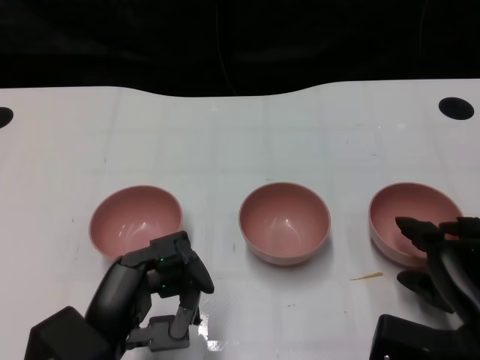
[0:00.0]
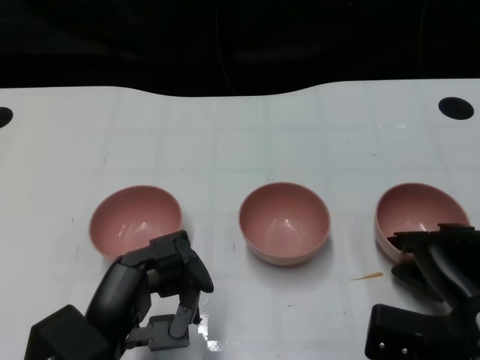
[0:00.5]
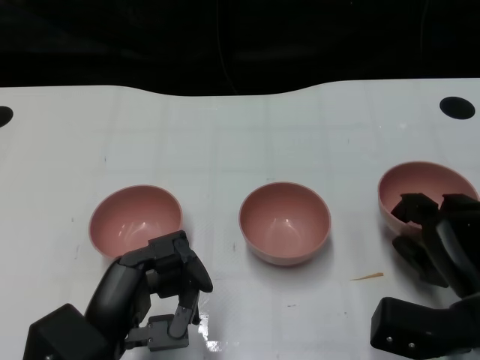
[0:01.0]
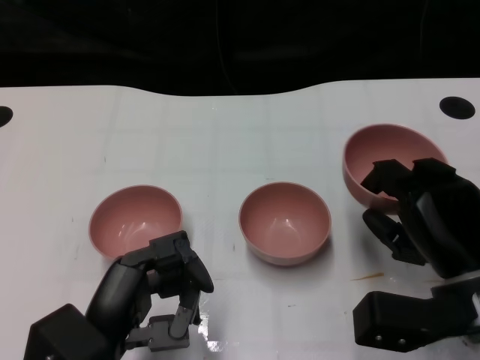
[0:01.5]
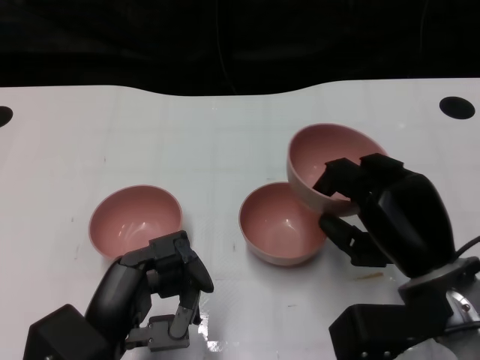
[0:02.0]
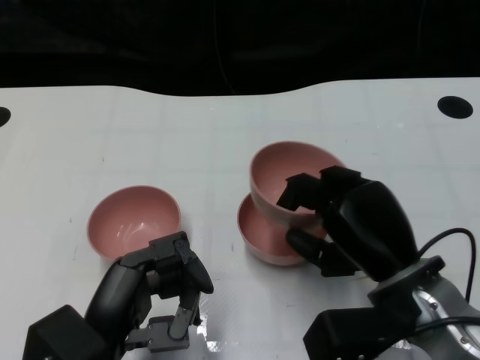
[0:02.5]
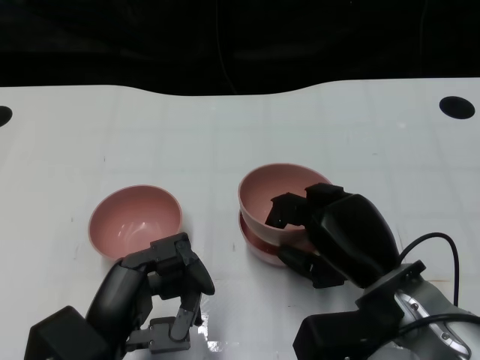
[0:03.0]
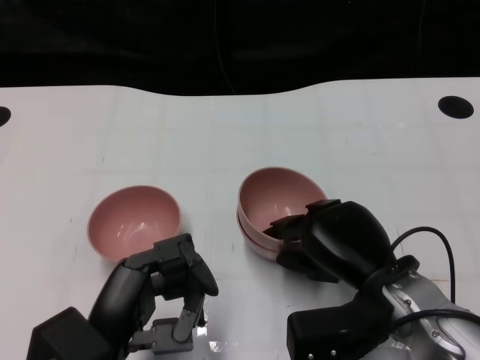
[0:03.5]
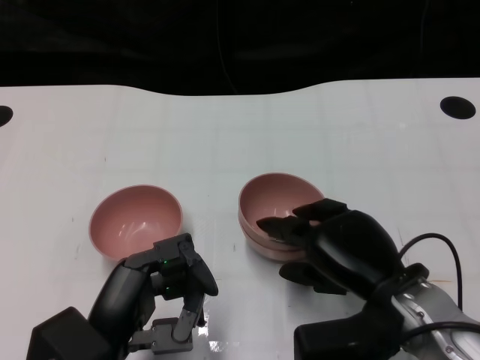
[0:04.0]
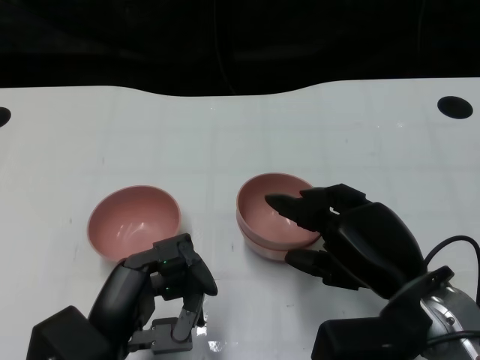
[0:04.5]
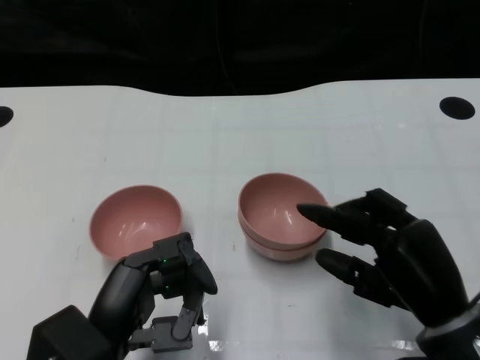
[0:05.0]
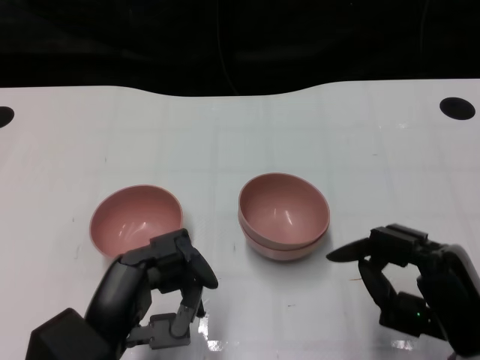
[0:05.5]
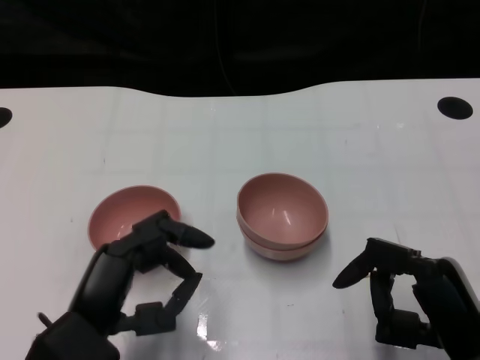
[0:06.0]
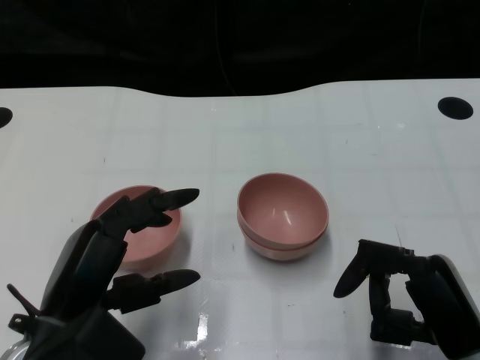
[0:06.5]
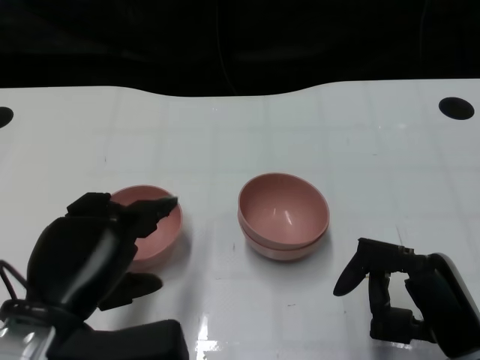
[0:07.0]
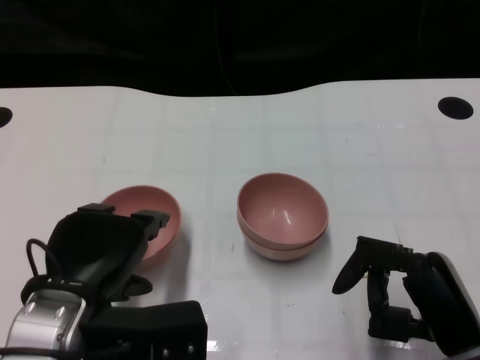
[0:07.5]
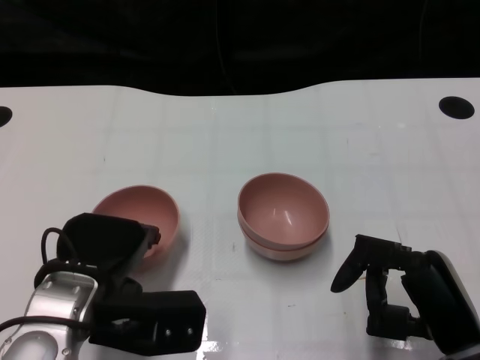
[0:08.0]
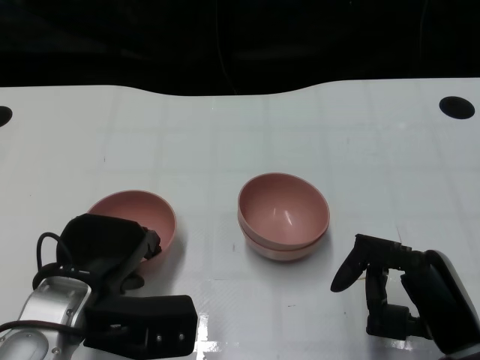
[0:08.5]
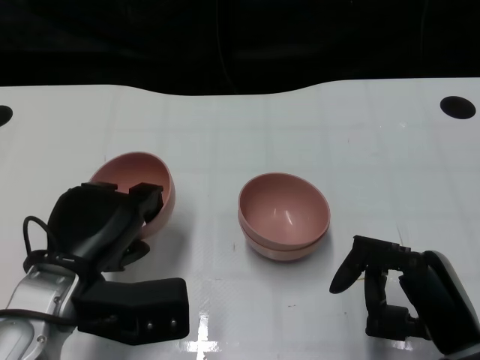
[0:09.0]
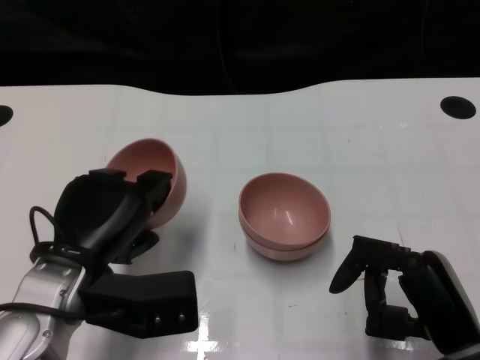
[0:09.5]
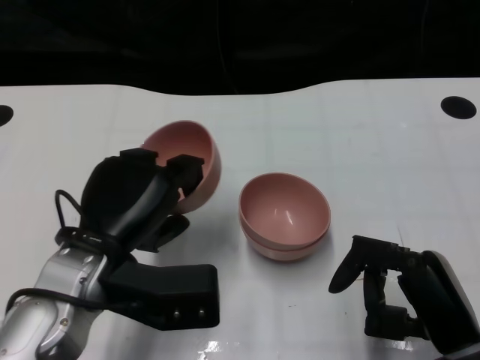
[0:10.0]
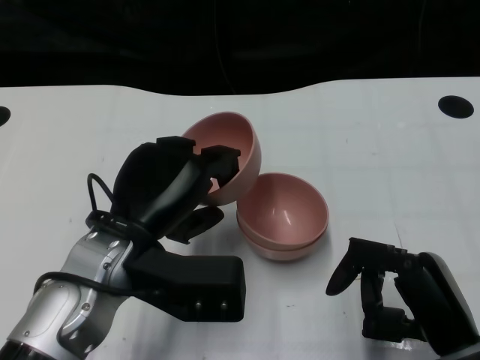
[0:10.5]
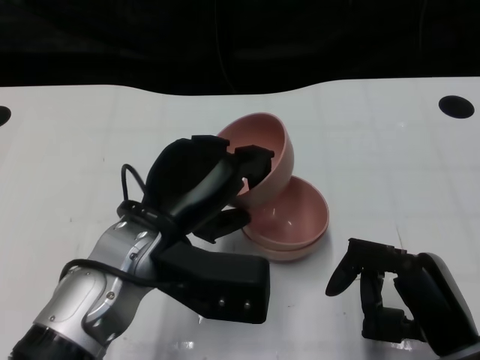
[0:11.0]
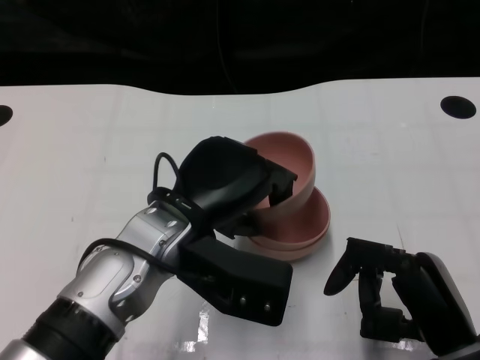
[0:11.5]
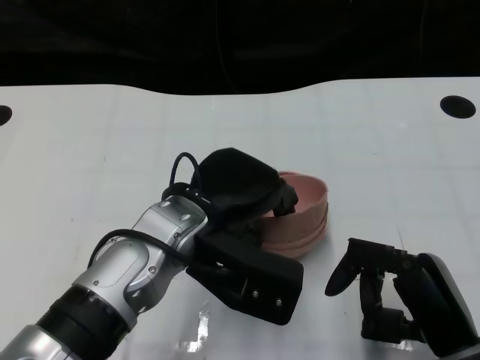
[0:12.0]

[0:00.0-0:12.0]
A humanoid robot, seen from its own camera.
Task of the whole recording: Pick up the bowl on one side of the table and place it on top of the middle bowl, then pick up the bowl on the other side of the table and place it on top of the middle bowls.
Step, 0:01.0 to 0:04.5: Place the bowl on the right onto the bowl in the middle with right gripper.
Step, 0:05.0 to 0:08.5: Grasp the bowl on the left with the left gripper.
0:00.0 to 0:02.0: The right hand heads to the left, covering some 5 cm.
0:04.0 to 0:06.0: The right hand heads backward and to the right, covering some 10 cm.
0:06.0 to 0:08.0: The left hand heads forward, covering approximately 5 cm.
0:10.0 to 0:12.0: The left hand shifts about 10 cm to the right.

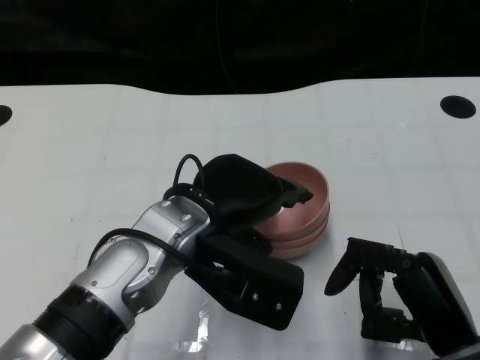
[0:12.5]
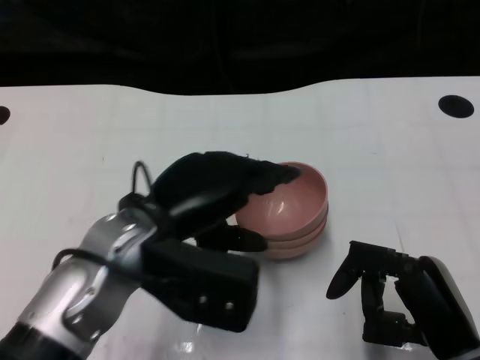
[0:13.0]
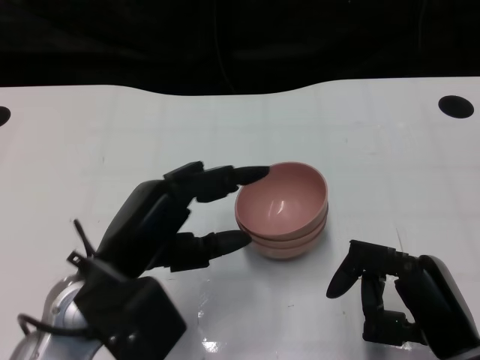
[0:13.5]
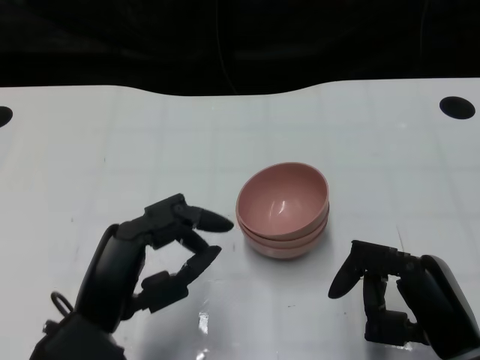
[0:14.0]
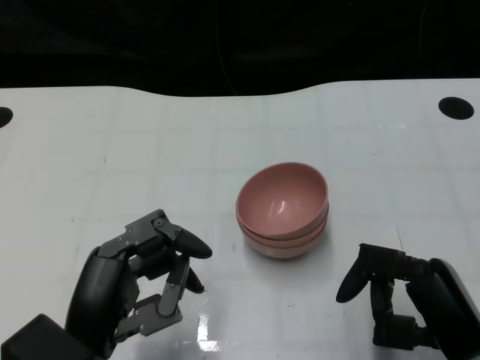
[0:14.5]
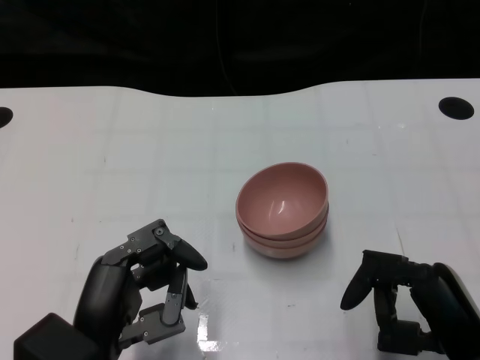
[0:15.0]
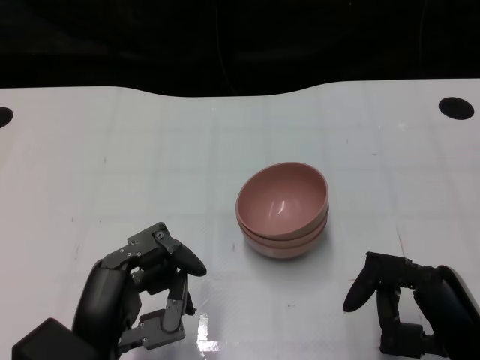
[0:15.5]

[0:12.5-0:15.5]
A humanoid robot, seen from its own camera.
Task of the whole recording: Pick up the bowl on one side of the table and place it on top of the middle bowl, then pick up the bowl on the other side of the table and place it on top of the middle bowls.
0:12.5 to 0:14.0: The left hand shifts some 15 cm to the left and backward.
0:14.0 to 0:15.5: There are only small adjustments of the hands.

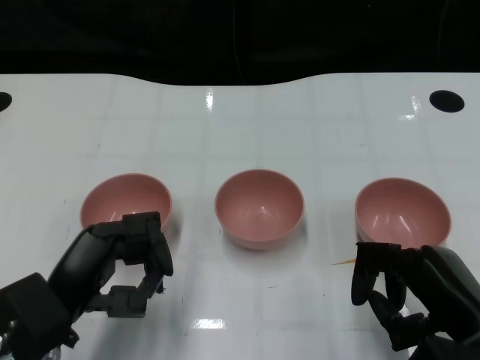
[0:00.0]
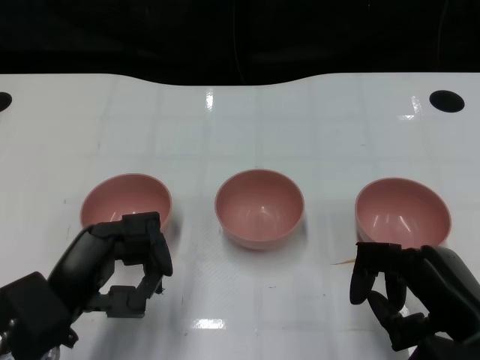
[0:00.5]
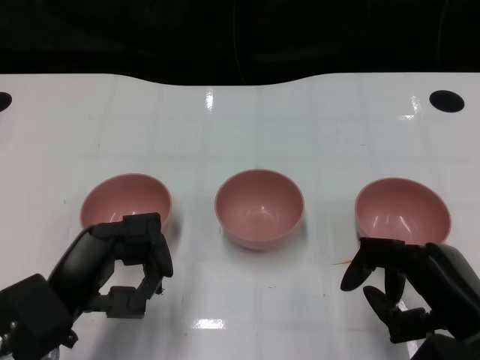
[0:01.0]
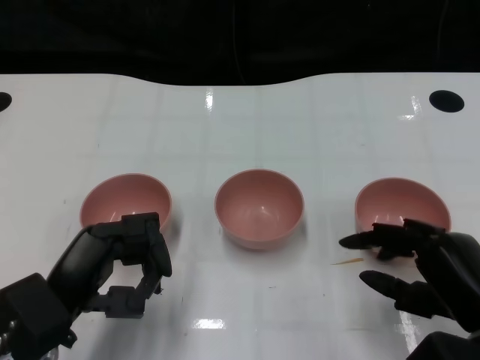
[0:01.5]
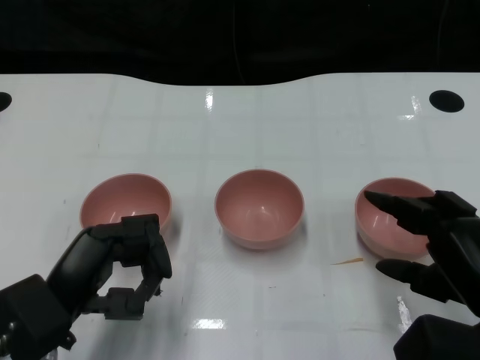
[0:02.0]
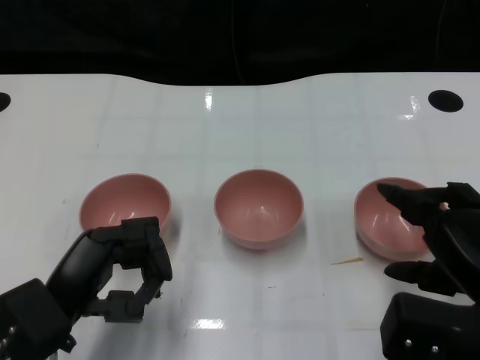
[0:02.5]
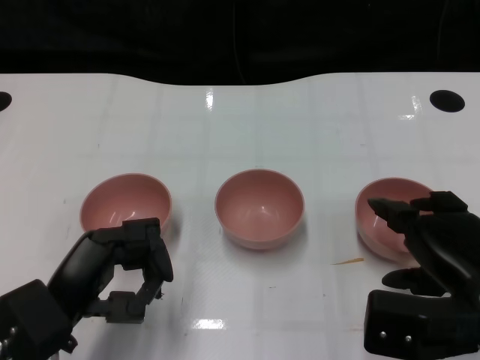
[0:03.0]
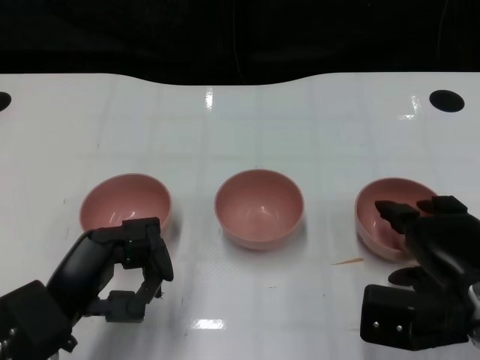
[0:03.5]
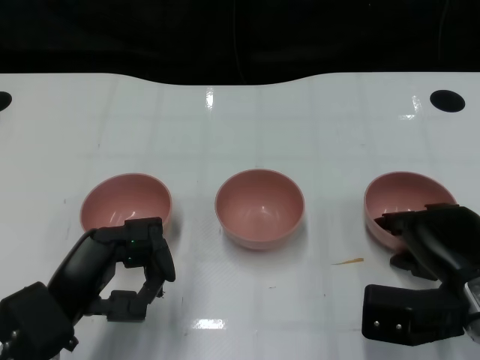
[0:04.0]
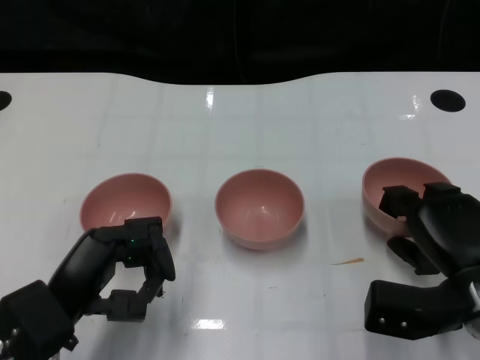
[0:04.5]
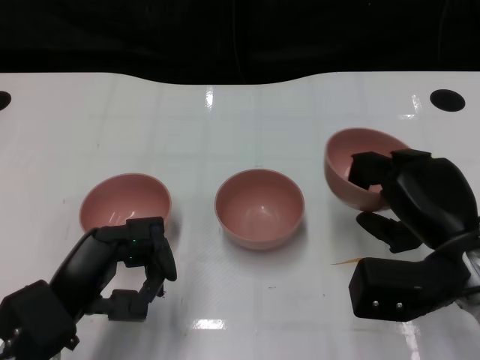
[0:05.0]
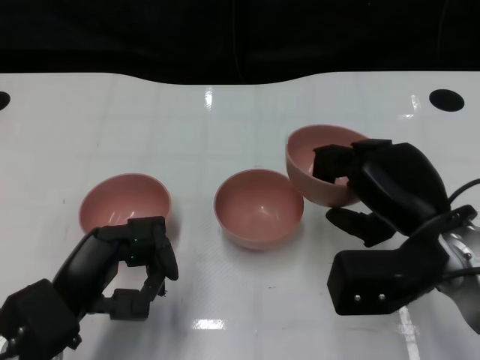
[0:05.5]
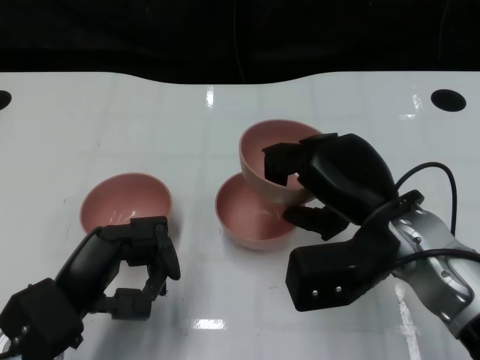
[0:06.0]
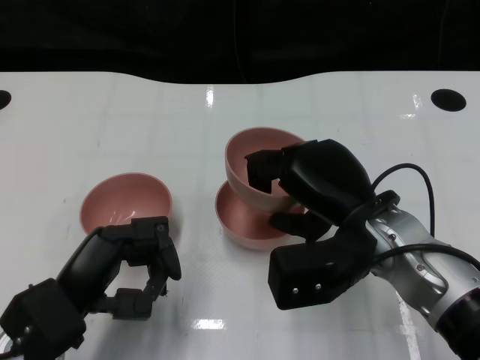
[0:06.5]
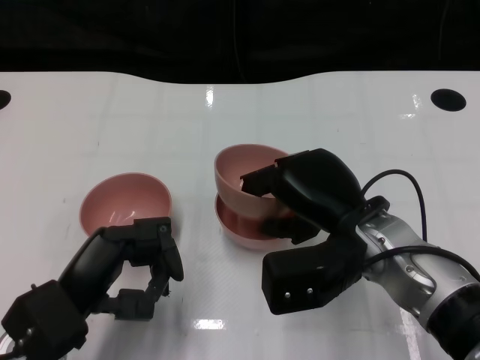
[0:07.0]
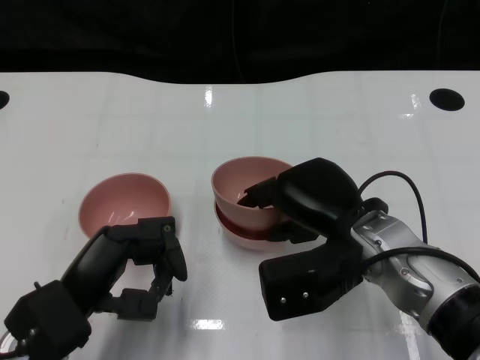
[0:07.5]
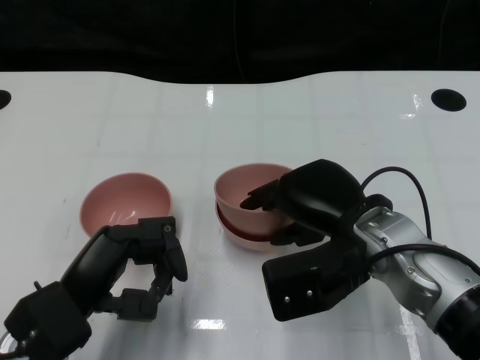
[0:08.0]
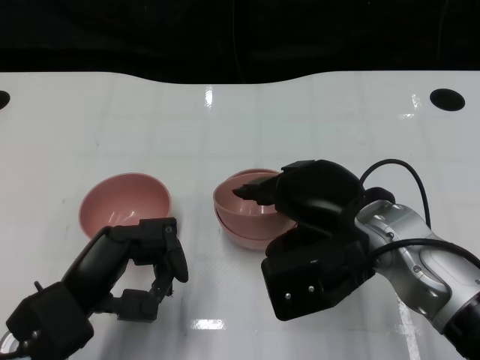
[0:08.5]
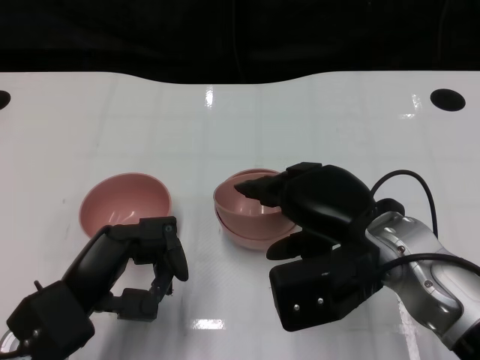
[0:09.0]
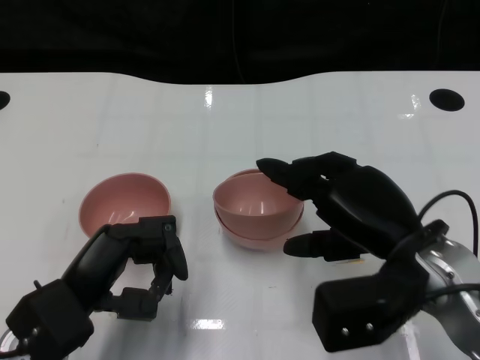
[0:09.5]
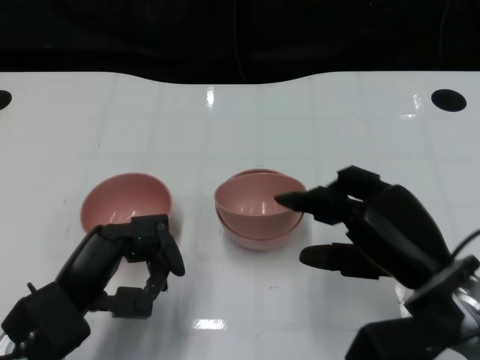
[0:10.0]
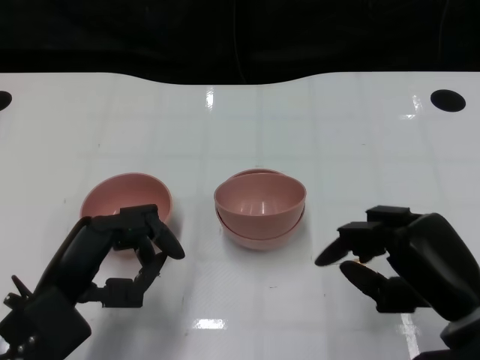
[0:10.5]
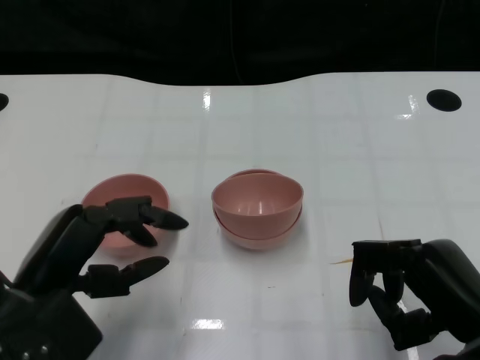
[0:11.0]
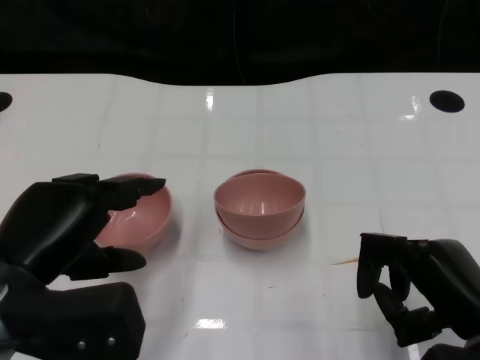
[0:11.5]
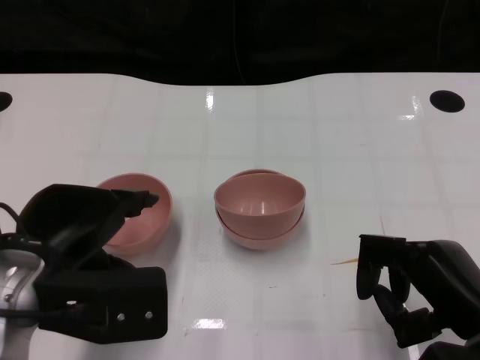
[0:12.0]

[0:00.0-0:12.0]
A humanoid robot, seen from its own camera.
Task of the whole recording: Pick up the bowl on one side of the table and place it on top of the middle bowl, then pick up the bowl on the other side of the table and place it on top of the middle bowls.
Step, 0:01.0 to 0:04.0: Grasp the bowl on the right with the right gripper.
Step, 0:04.5 to 0:09.5: Place the bowl on the right onto the bowl in the middle with right gripper.
0:02.0 to 0:04.0: The right hand travels forward by approximately 5 cm.
0:04.0 to 0:06.0: The right hand heads to the left and upward, covering approximately 10 cm.
0:06.0 to 0:08.0: There are only small adjustments of the hands.
0:08.0 to 0:10.0: The right hand travels to the right and backward by roughly 10 cm.
0:10.0 to 0:12.0: The left hand moves upward, about 10 cm; the right hand ends up about 5 cm from where it was.
